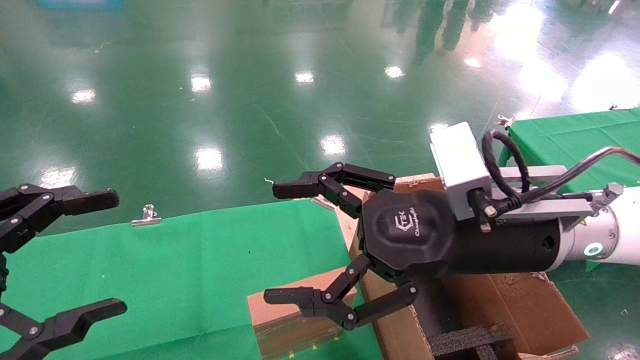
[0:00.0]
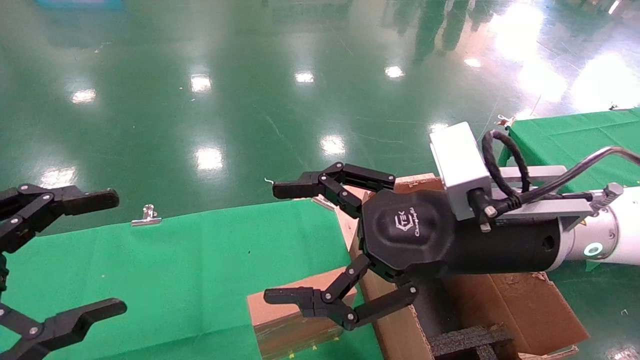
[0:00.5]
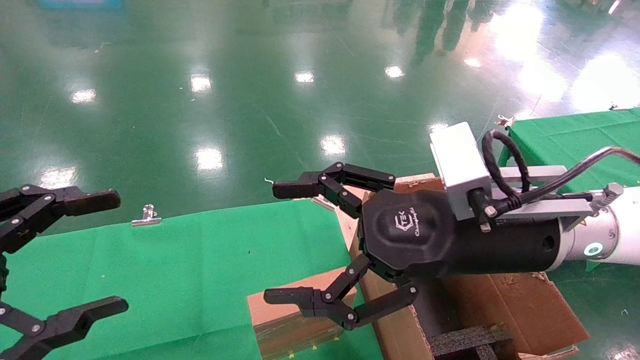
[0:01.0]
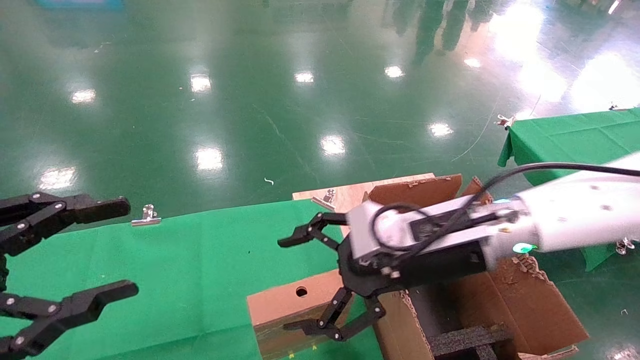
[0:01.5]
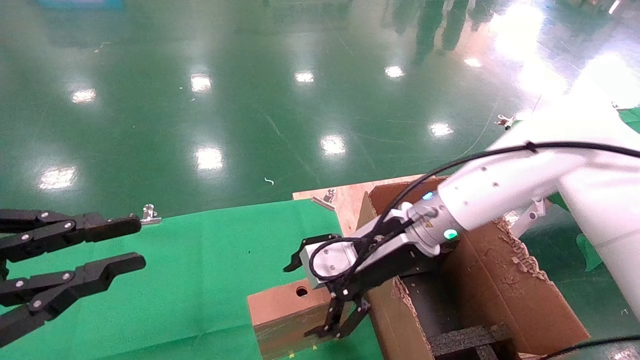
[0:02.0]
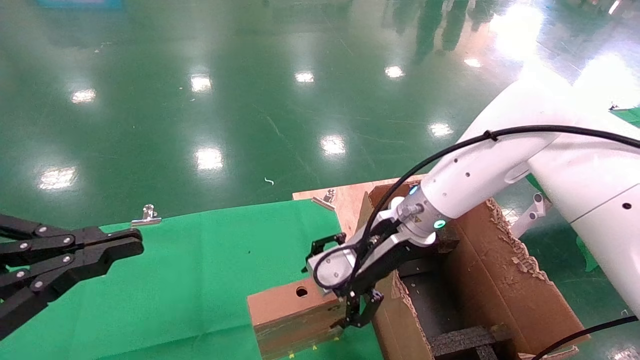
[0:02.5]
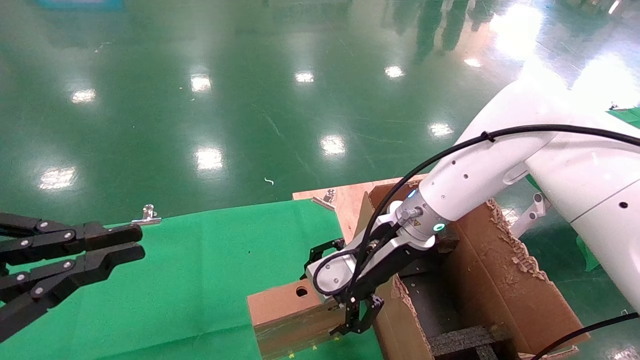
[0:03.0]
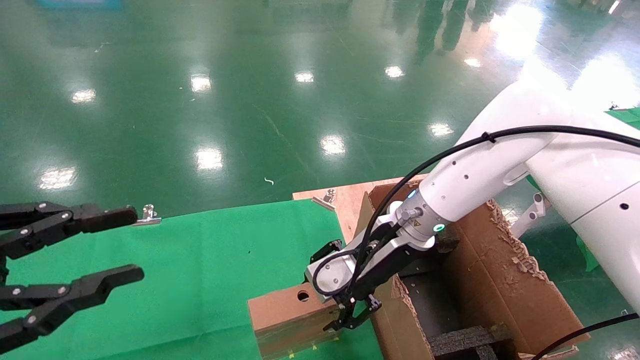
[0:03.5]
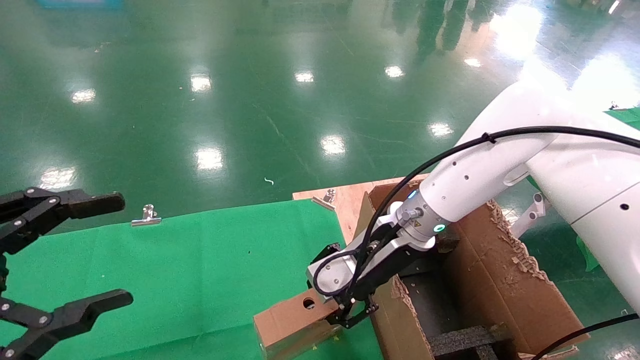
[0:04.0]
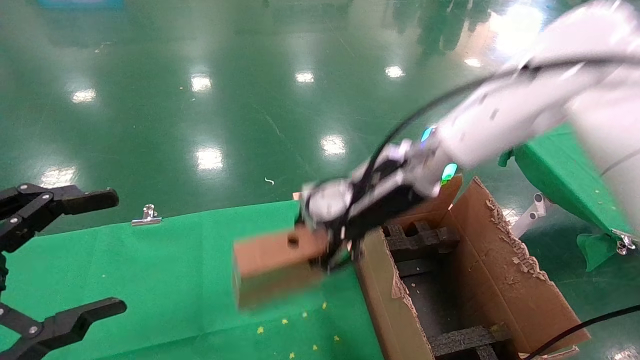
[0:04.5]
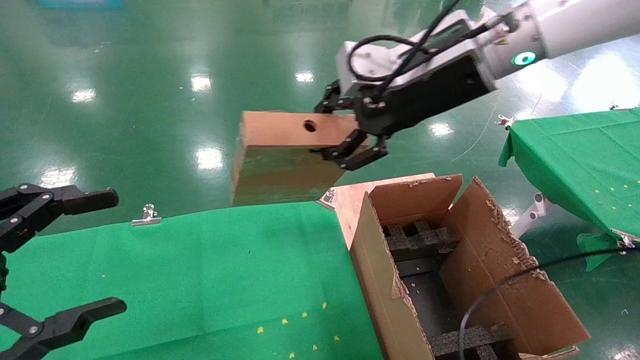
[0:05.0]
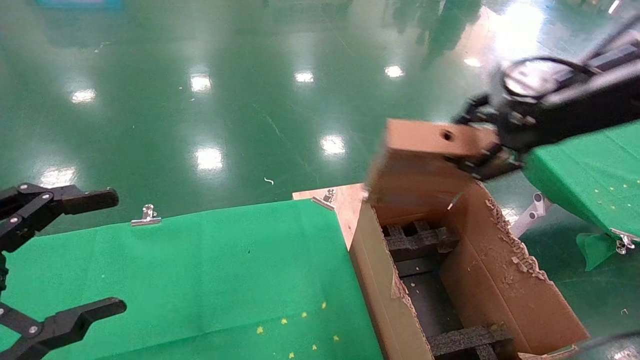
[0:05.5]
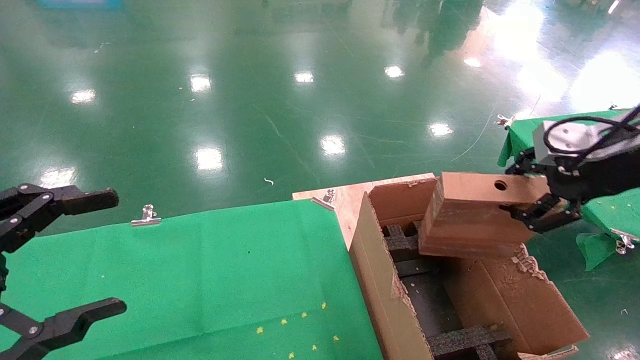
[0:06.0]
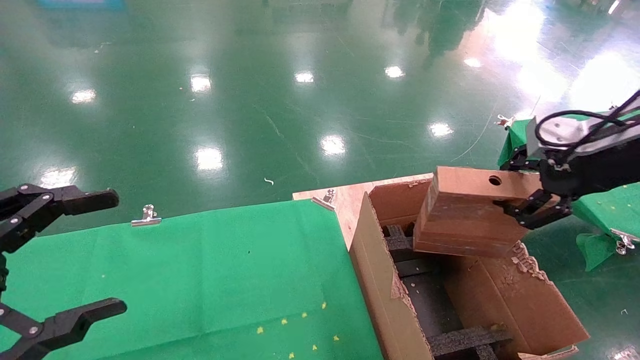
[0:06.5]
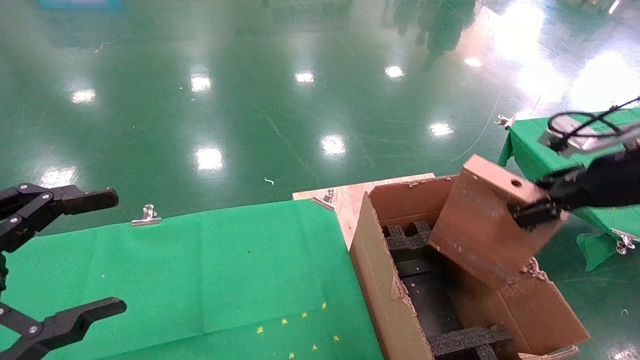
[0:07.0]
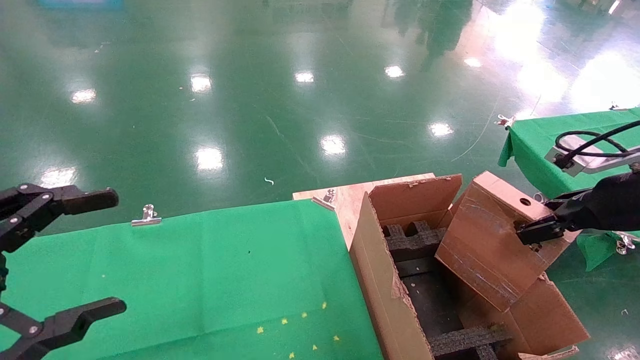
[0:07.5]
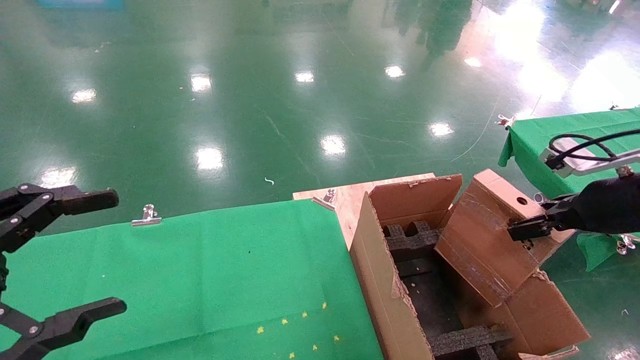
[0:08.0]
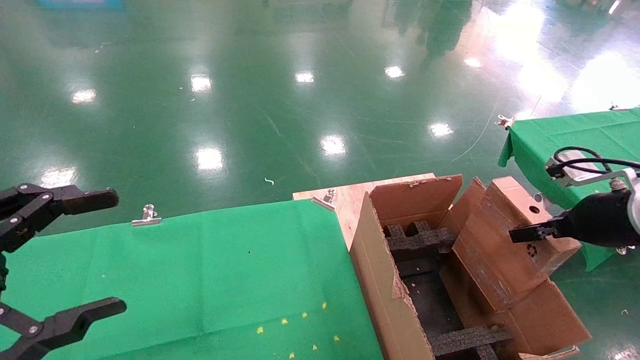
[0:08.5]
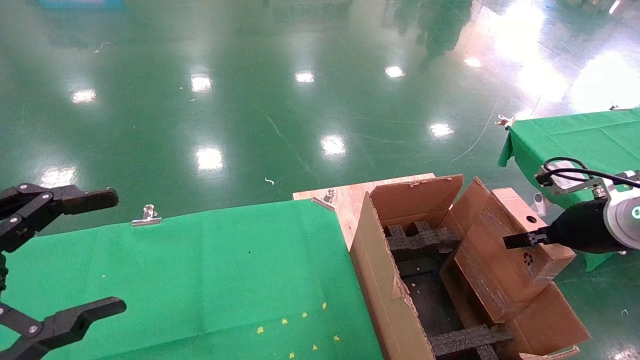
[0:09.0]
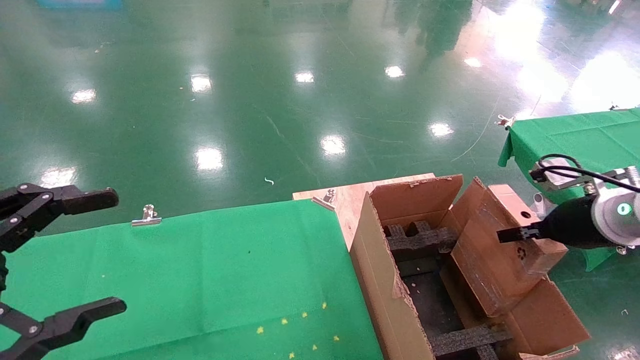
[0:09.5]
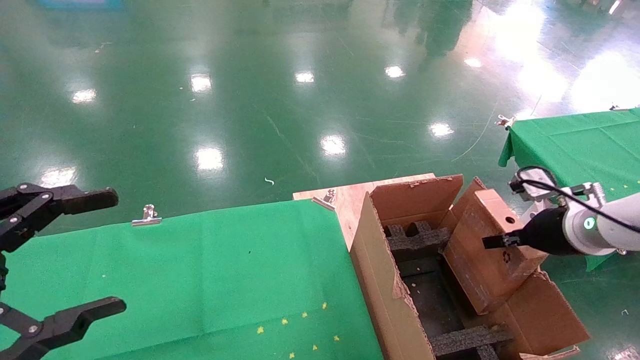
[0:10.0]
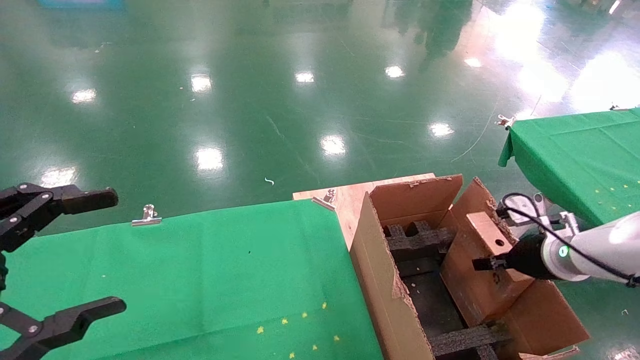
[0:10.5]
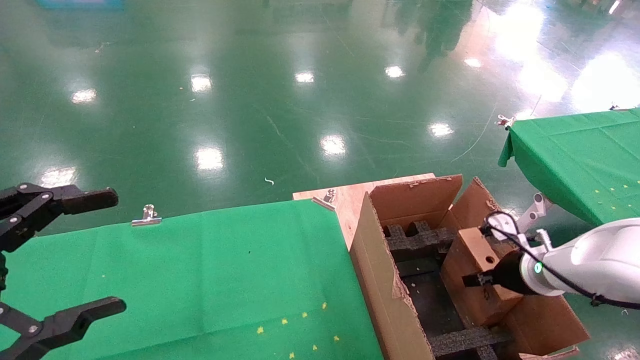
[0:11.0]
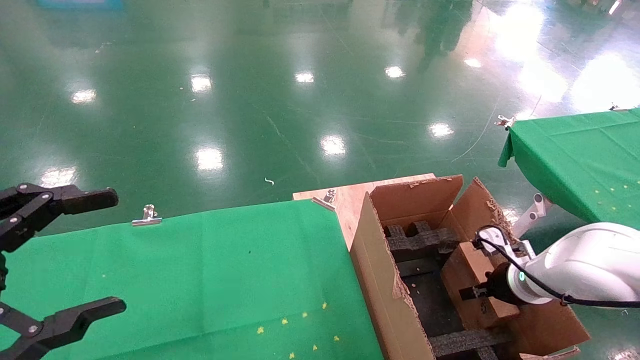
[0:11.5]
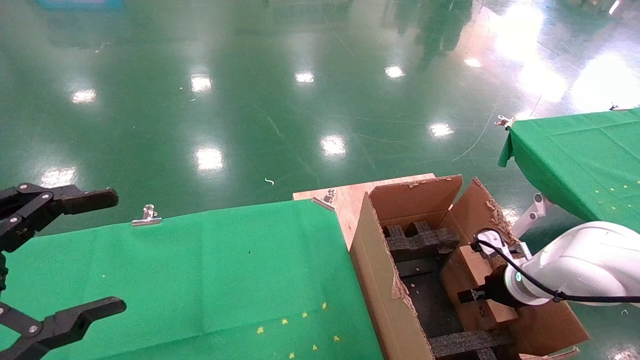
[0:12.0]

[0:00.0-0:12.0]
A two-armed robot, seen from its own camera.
Task of the whole recording: using a robotic arm to pick up a cardboard box and palace it the carton.
Step, 0:01.5 to 0:03.5: Pick up the mouse and the power cord paper box.
0:00.0 to 0:02.0: The right gripper heads forward and downward, covering approximately 15 cm, while the left gripper closes.
0:02.0 to 0:04.0: The left gripper opens up. Meanwhile the right gripper closes.
0:04.0 to 0:06.0: The right gripper moves to the right, upward and backward, approximately 30 cm.
0:06.0 to 0:08.0: The right gripper is displaced downward by approximately 10 cm.
0:08.0 to 0:10.0: The right gripper goes approximately 10 cm downward and forward.
0:10.0 to 0:12.0: The right gripper travels downward by approximately 10 cm.

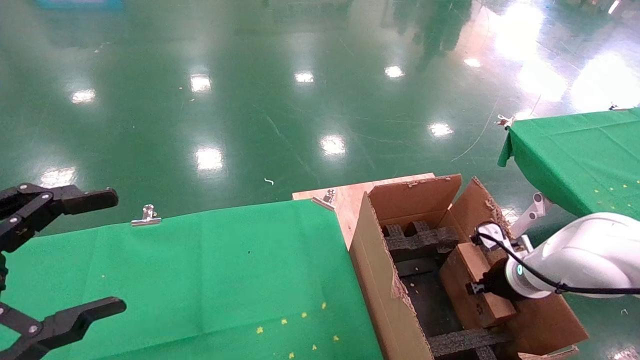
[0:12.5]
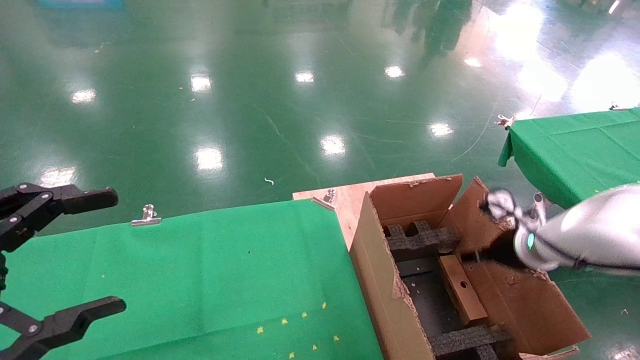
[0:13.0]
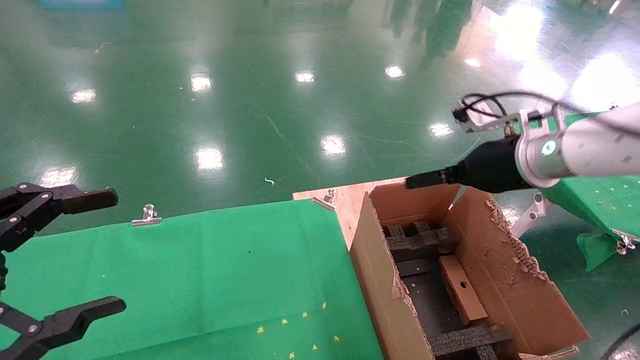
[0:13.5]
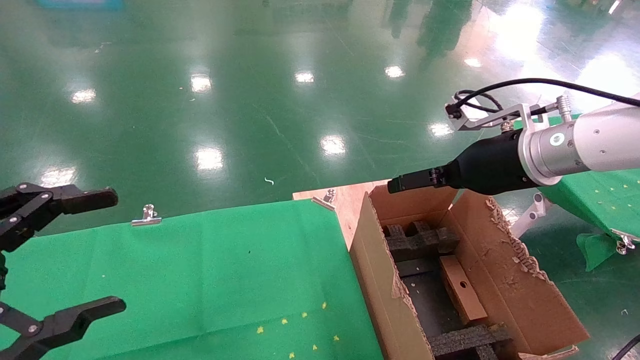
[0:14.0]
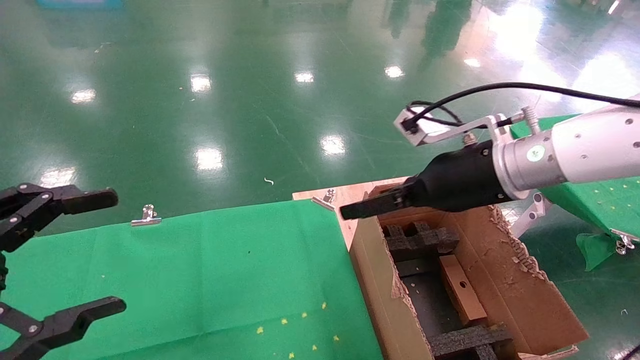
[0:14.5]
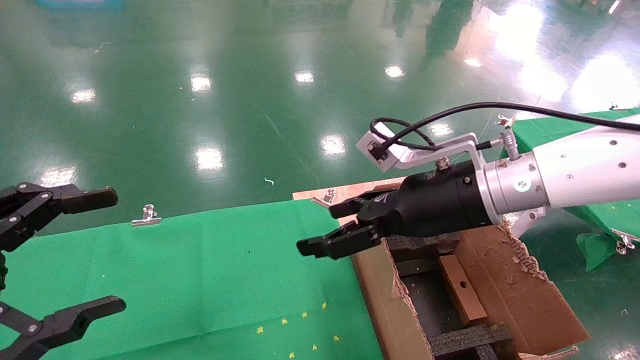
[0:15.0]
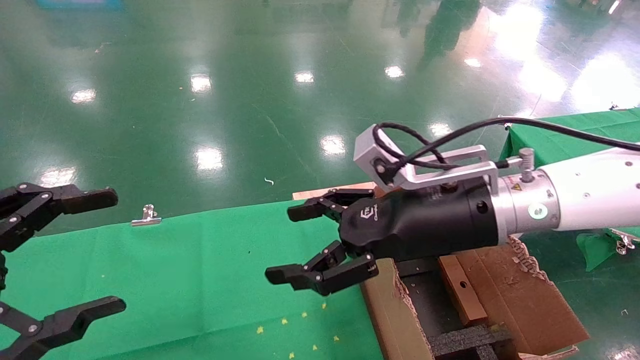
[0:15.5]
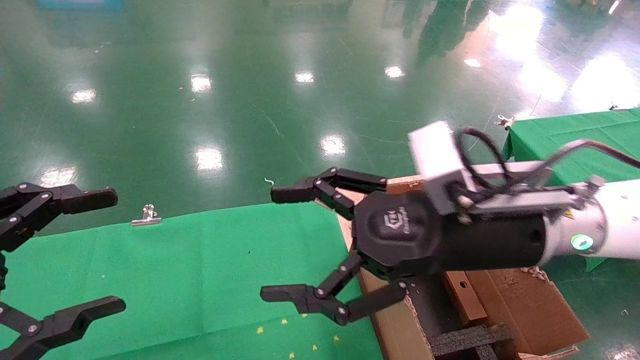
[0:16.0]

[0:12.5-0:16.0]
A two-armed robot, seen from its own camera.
Task of the whole recording: using a robotic arm to pick up a cardboard box and palace it the carton.
0:12.5 to 0:14.5: The right gripper heads upward and to the left, covering some 25 cm, and opens its fingers.
0:14.5 to 0:16.0: The right gripper goes some 10 cm backward and to the left.

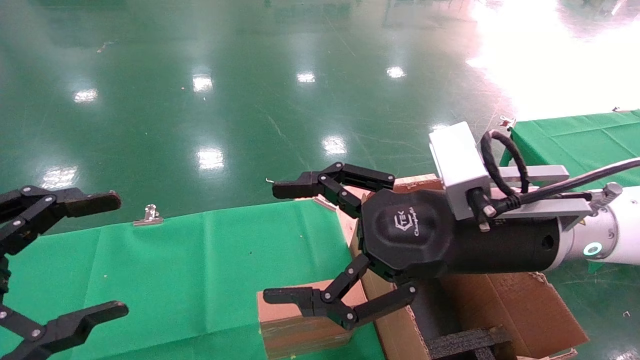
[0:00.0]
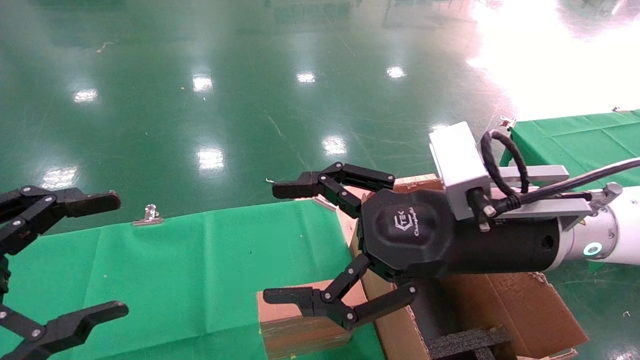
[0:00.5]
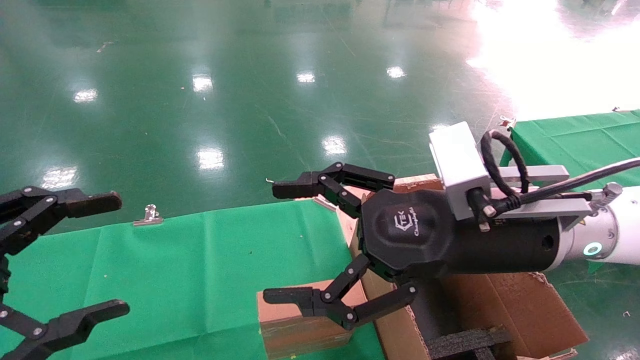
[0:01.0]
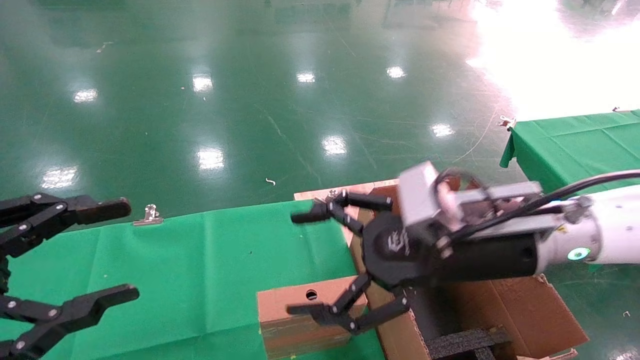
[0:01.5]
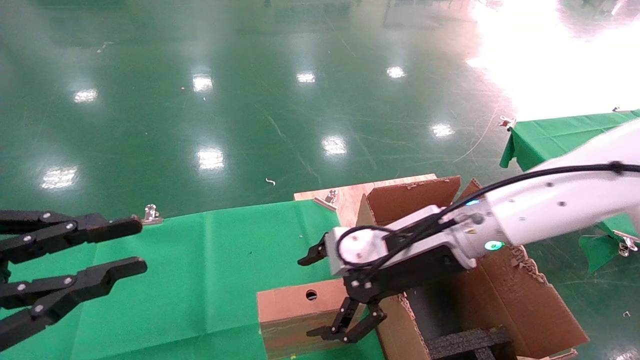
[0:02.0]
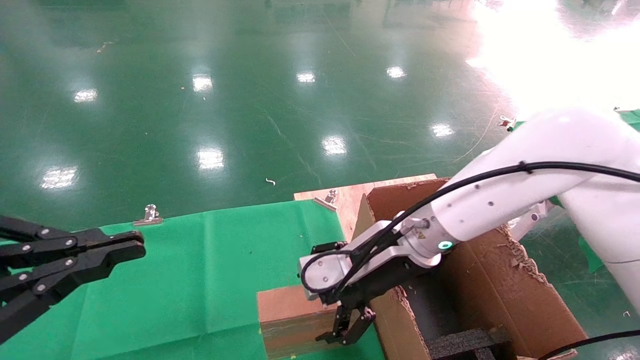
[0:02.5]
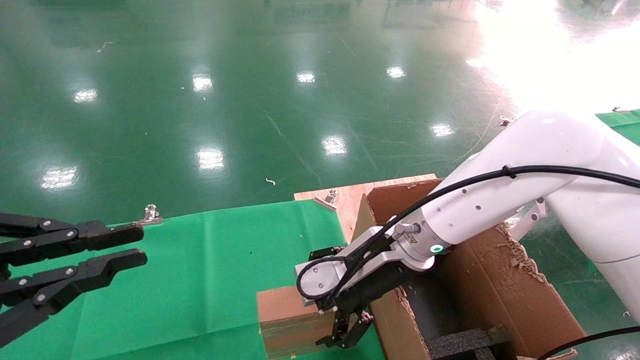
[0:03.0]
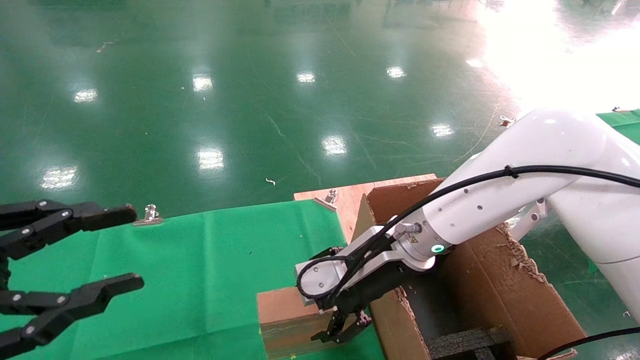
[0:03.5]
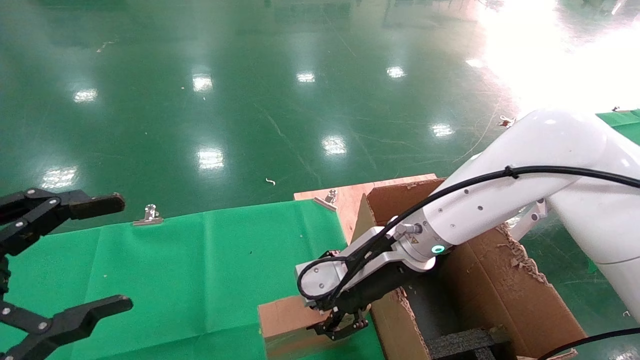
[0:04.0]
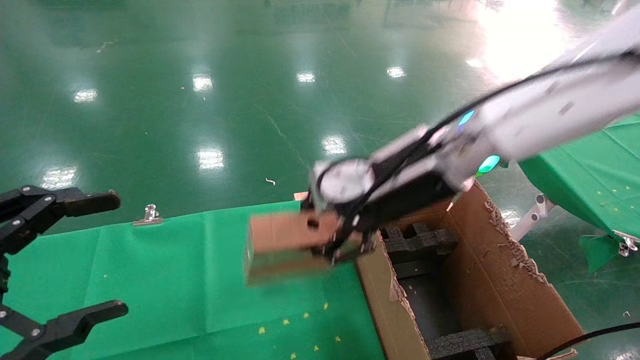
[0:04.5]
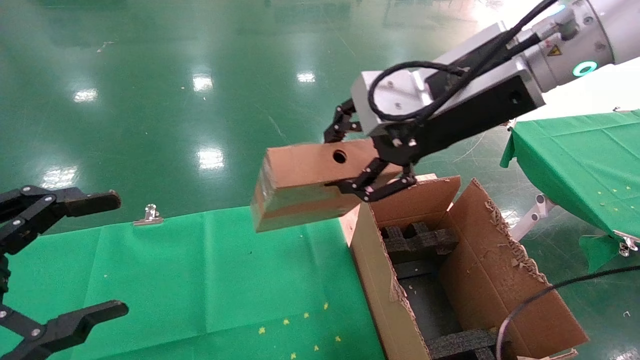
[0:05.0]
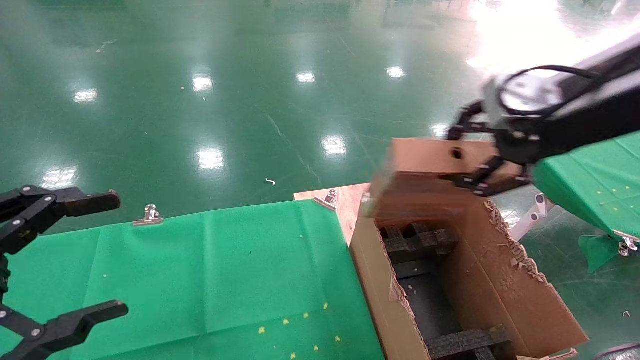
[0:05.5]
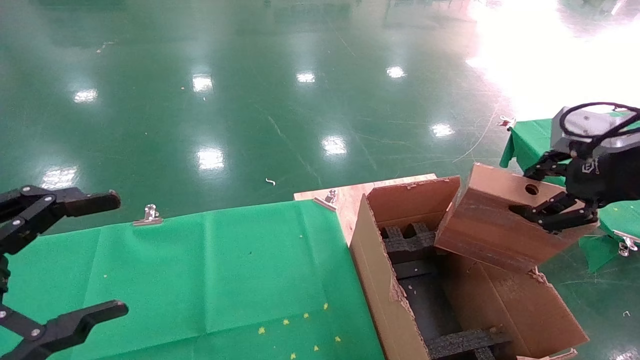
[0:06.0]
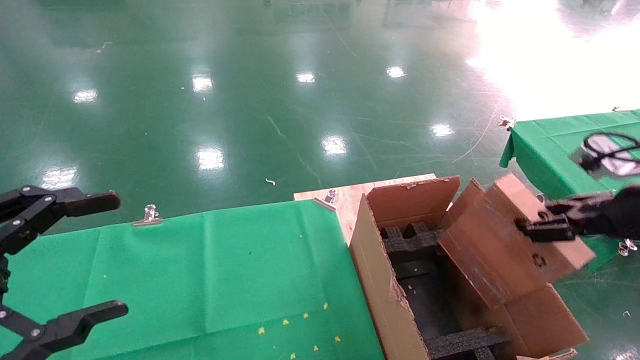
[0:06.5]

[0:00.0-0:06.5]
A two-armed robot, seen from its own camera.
Task of the whole recording: using a robotic arm to pick up a cardboard box and palace it the carton.
Step, 0:01.5 to 0:04.0: Pick up the mouse and the power cord paper box.
0:00.0 to 0:02.0: The right gripper shifts approximately 10 cm forward and downward. The left gripper closes up.
0:02.0 to 0:04.5: The right gripper is displaced upward by approximately 10 cm, and closes its fingers. The left gripper opens its fingers.
0:04.5 to 0:06.5: The right gripper heads to the right, covering about 30 cm.
